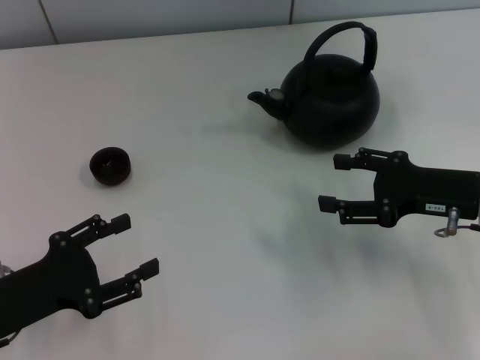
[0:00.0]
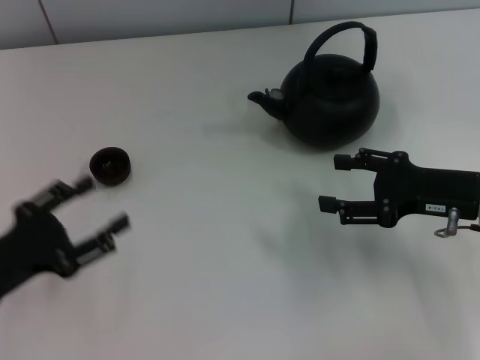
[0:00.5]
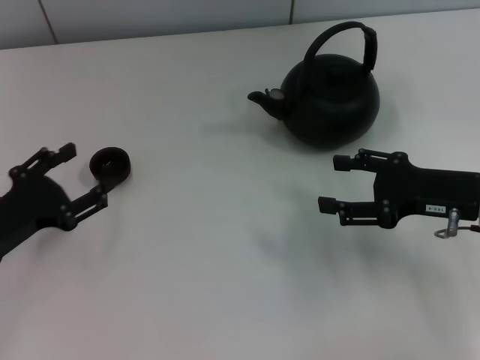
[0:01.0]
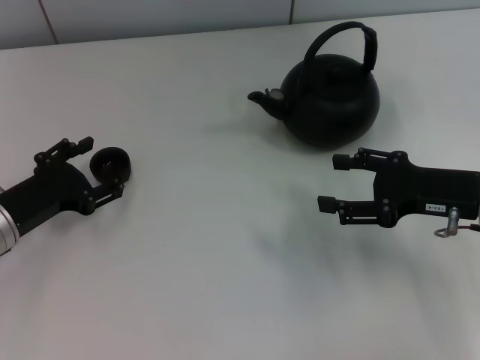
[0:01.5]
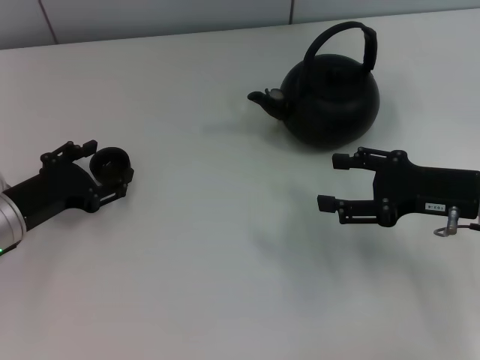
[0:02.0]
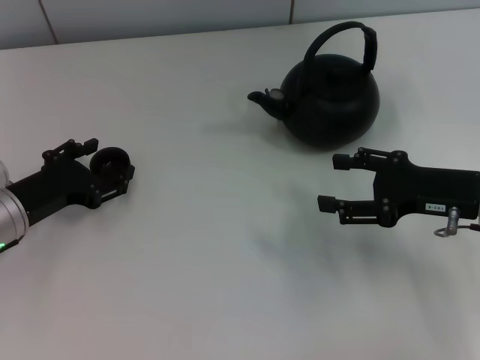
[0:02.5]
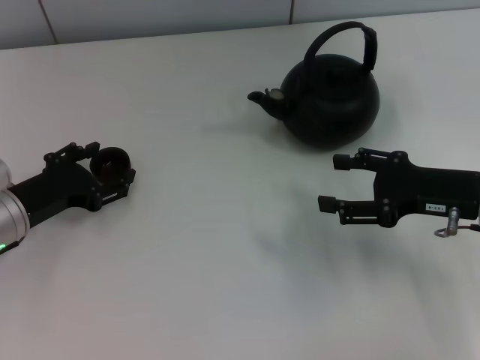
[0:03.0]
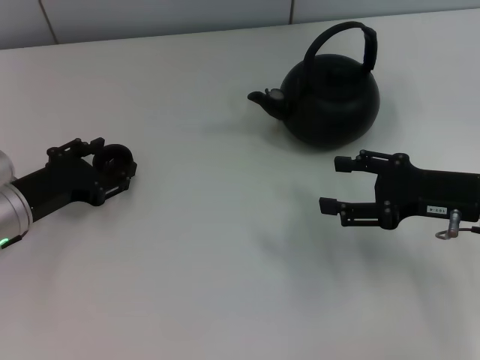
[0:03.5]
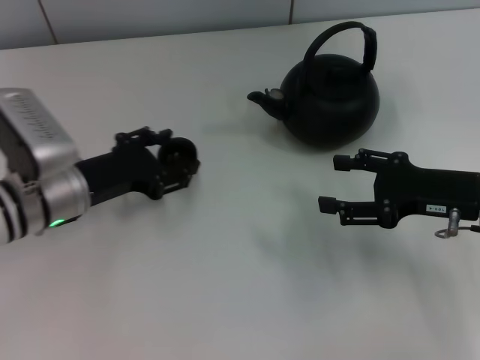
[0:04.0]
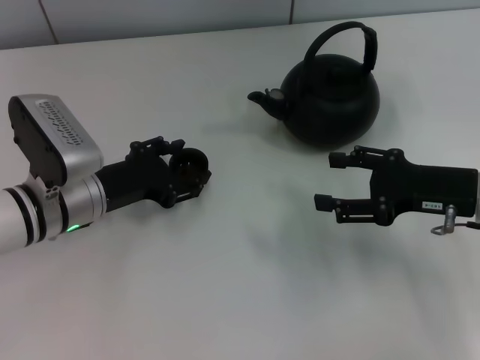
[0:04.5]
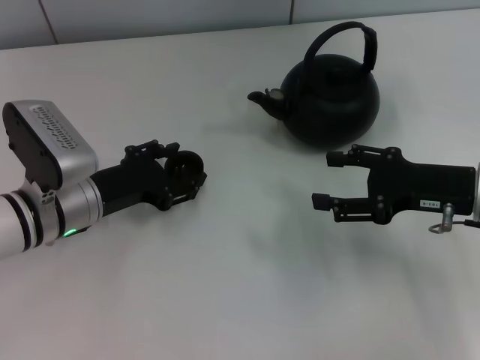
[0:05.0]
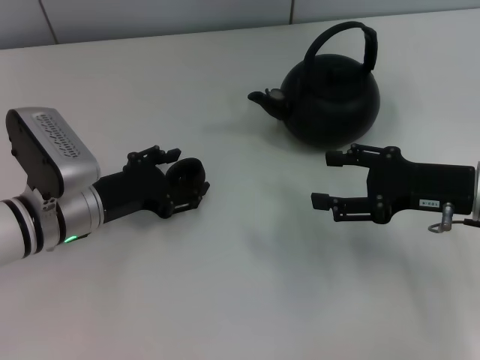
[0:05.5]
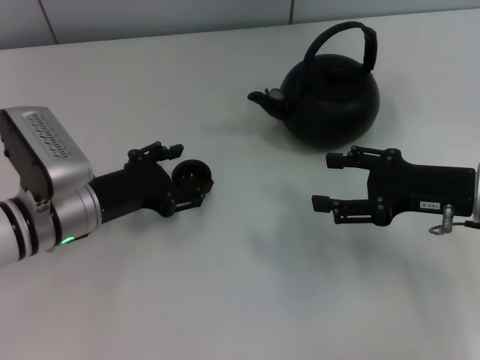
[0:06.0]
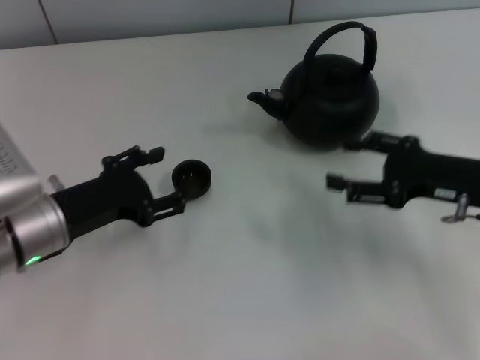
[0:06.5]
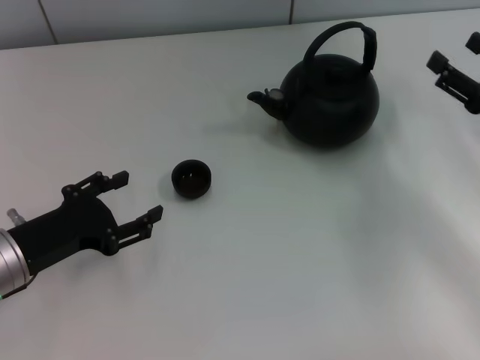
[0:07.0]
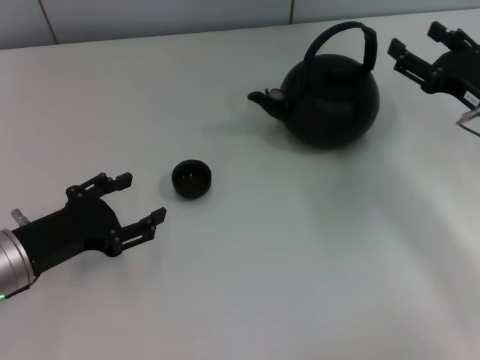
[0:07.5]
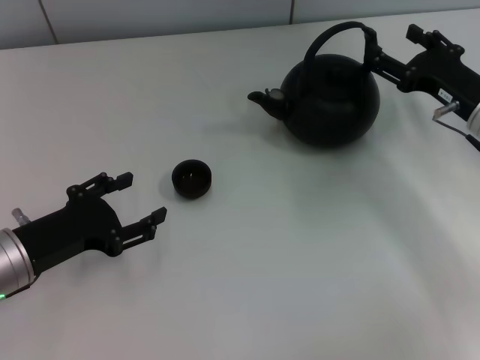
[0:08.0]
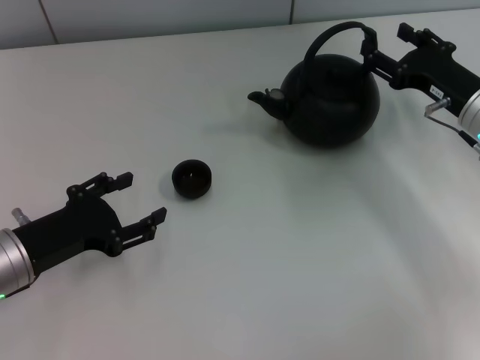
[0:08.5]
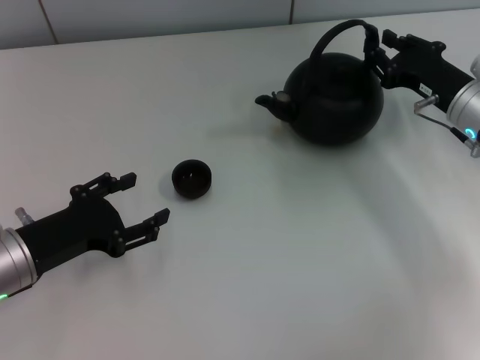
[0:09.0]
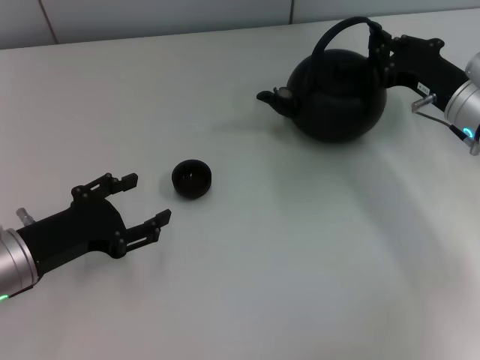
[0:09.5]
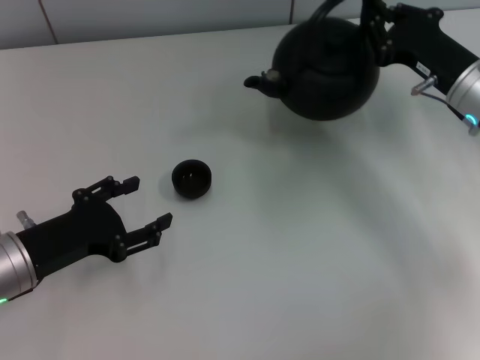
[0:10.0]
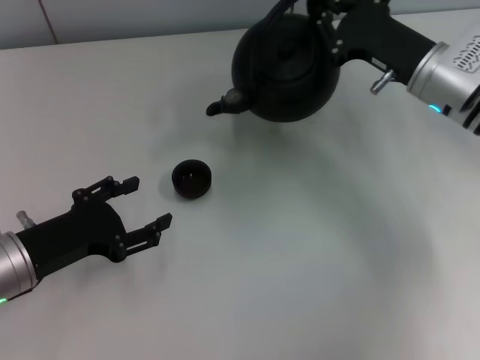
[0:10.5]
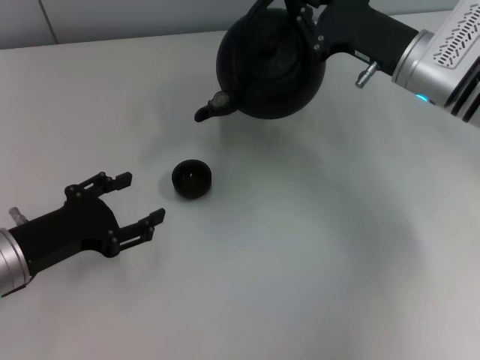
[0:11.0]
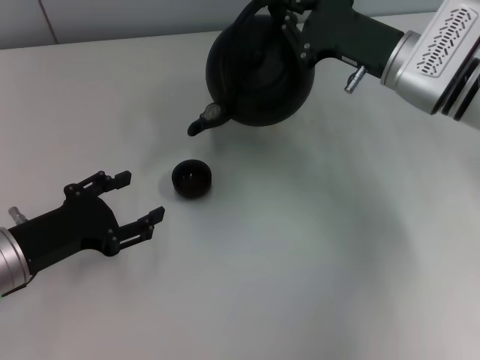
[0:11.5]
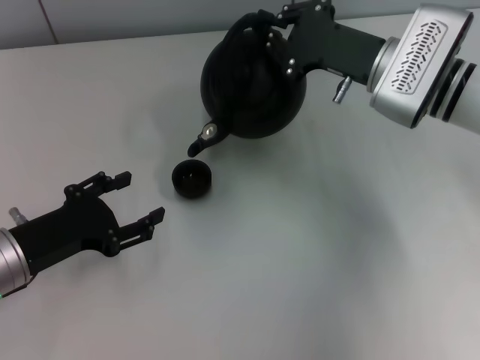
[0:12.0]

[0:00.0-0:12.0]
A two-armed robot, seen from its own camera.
Task of the whole recording: Grasp the handle of the teapot with one hand and pour tea into the teacup.
Step, 0:00.0 to 0:03.5: Pick up the teacup with the left gripper.
Step, 0:04.0 to 0:07.0: Place the teacup in the center of view with the left gripper.
Step, 0:07.5 to 0:10.0: Pick up the teapot with the right gripper.
0:00.0 to 0:02.0: The left gripper moves forward, roughly 10 cm.
0:02.0 to 0:04.0: The left gripper shifts roughly 5 cm to the right.
0:04.0 to 0:06.0: The grippers make only small movements.
0:06.0 to 0:08.0: The left gripper moves backward and to the left, about 10 cm; the right gripper travels forward by about 5 cm.
0:08.0 to 0:10.0: The right gripper closes its fingers.
0:10.0 to 0:12.0: The right gripper shifts approximately 10 cm to the left.

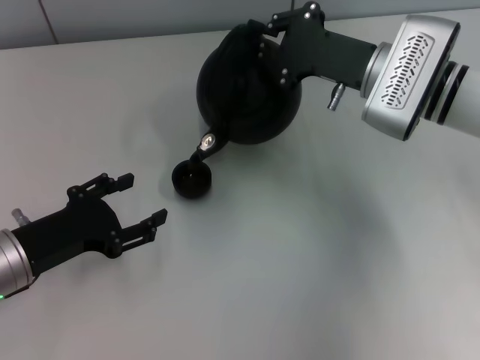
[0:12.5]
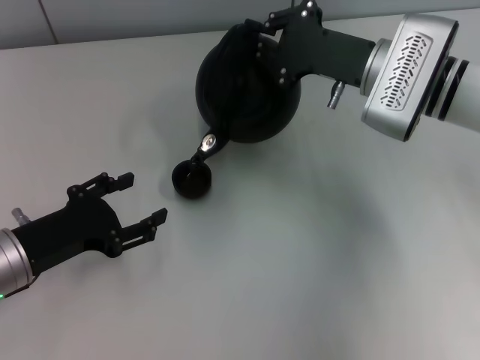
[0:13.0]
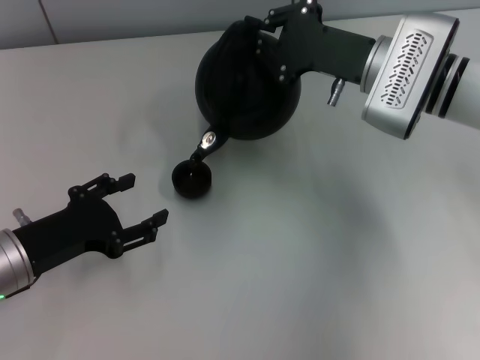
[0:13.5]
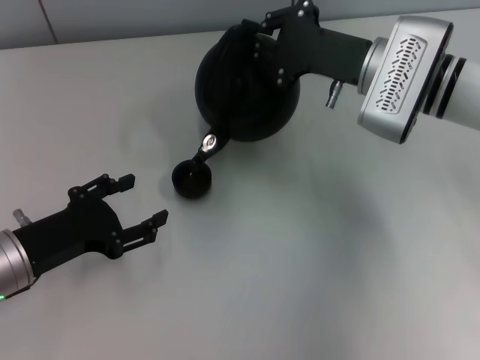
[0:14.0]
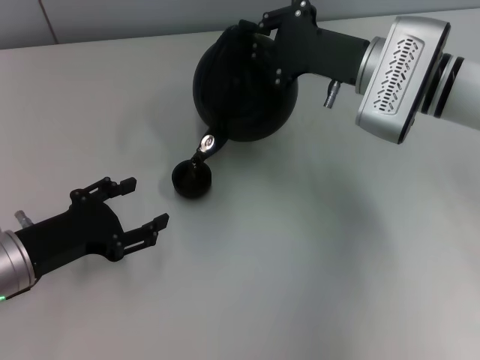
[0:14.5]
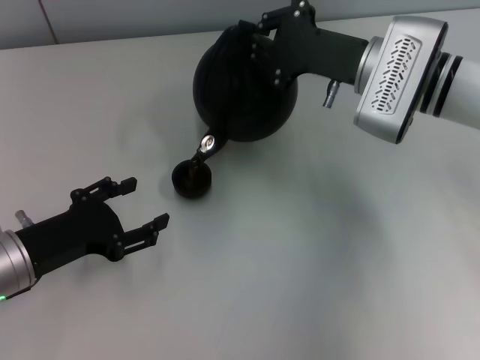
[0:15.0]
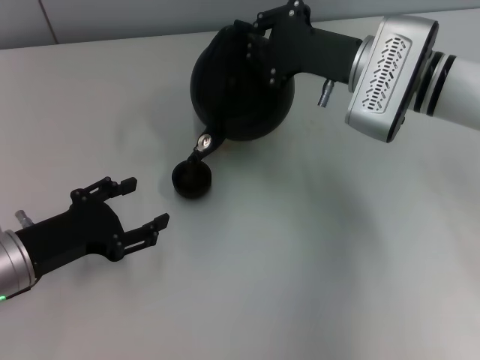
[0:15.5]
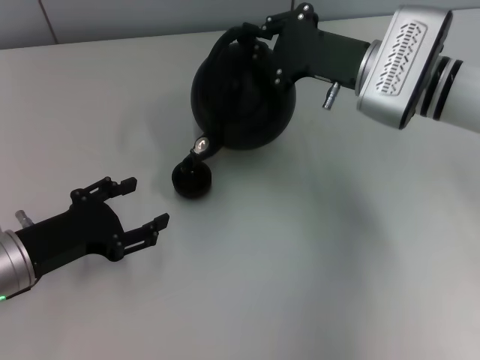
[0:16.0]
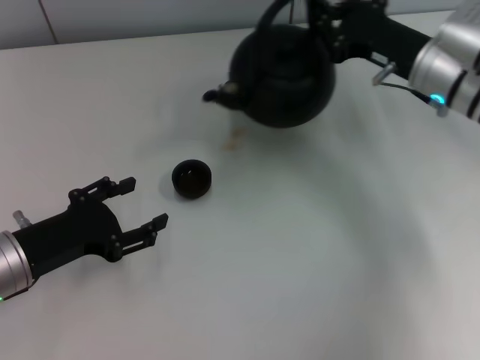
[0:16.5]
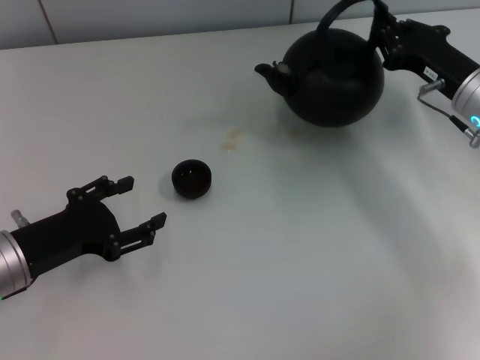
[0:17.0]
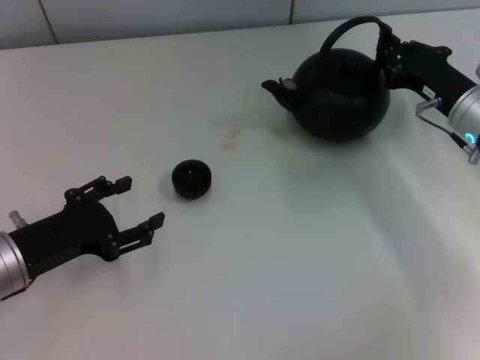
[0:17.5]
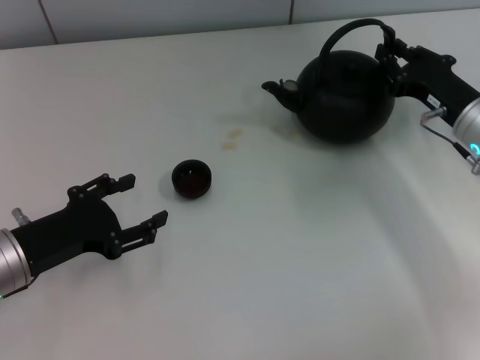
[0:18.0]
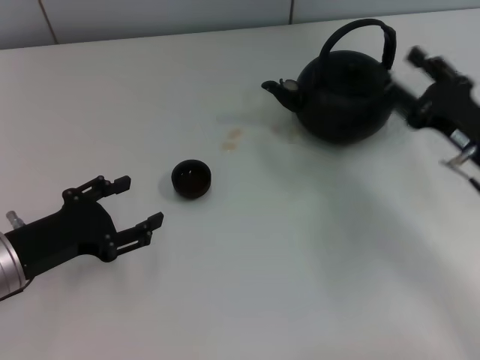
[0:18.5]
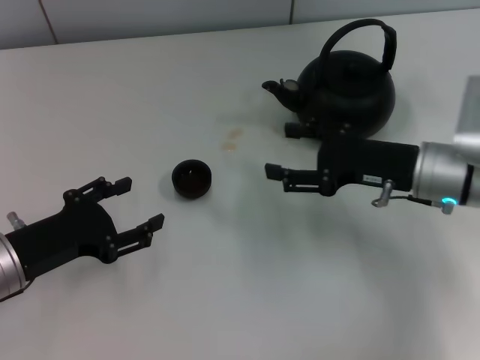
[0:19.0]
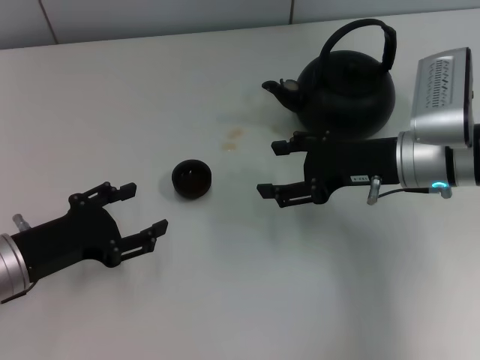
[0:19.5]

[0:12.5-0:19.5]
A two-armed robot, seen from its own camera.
Task of the whole recording: Grasp the handle of the teapot with one hand and pour tea into the teacup.
Step, 0:17.0 to 0:18.0: Put down the teapot with the right gripper.
0:12.5 to 0:16.0: The grippers make only small movements.
0:16.0 to 0:17.5: The right gripper is displaced to the right and downward by some 10 cm.
0:17.5 to 0:19.5: The right gripper is displaced to the left by some 5 cm, and opens.
